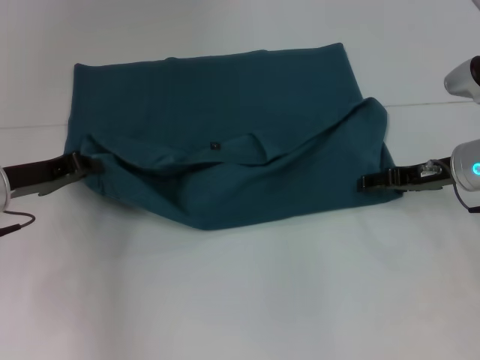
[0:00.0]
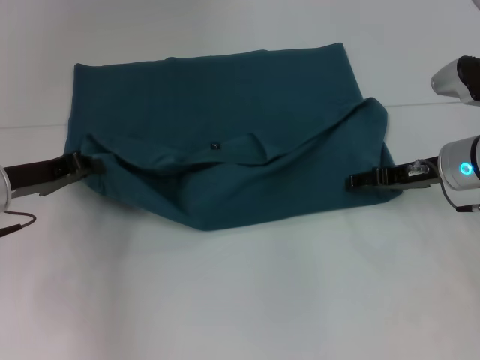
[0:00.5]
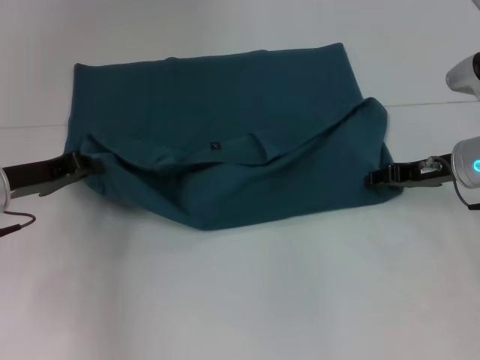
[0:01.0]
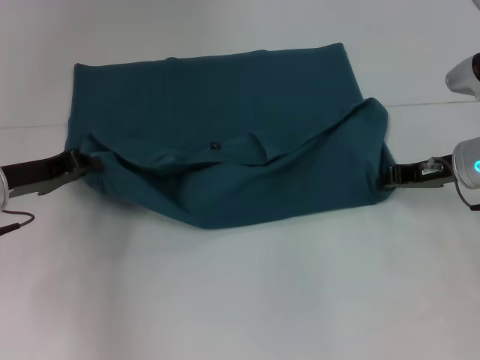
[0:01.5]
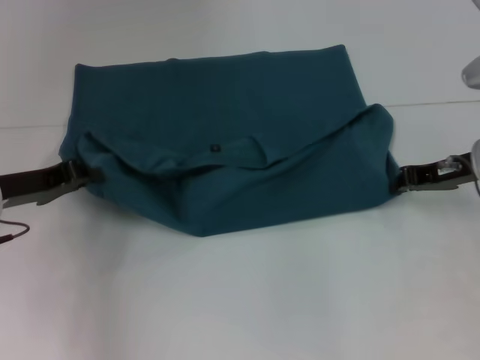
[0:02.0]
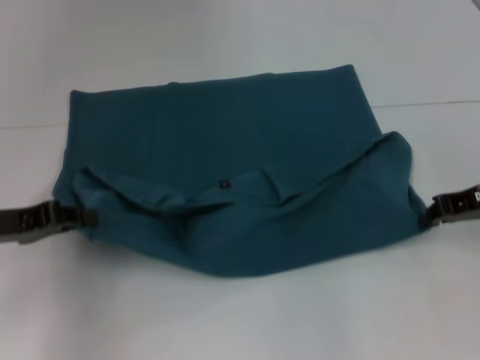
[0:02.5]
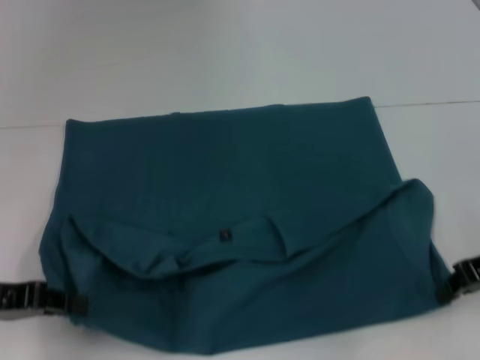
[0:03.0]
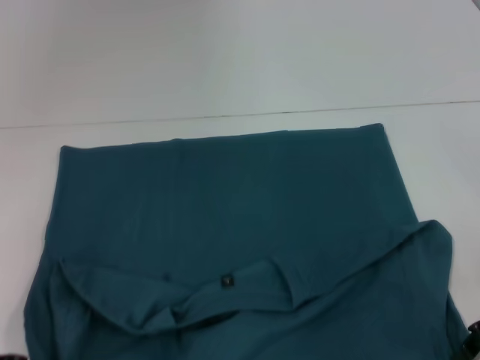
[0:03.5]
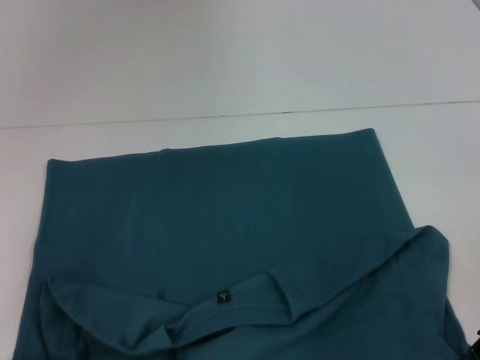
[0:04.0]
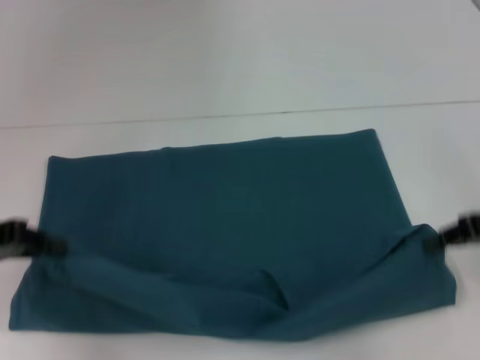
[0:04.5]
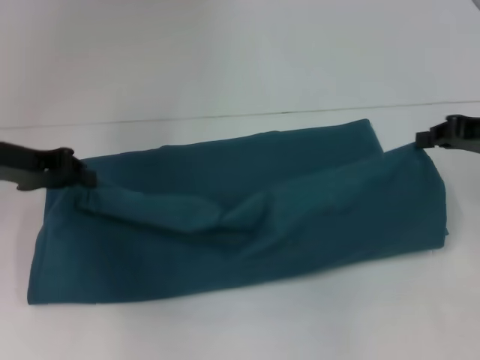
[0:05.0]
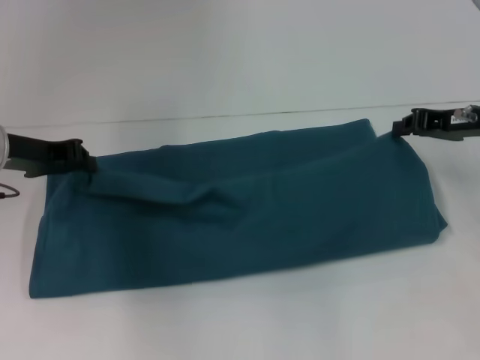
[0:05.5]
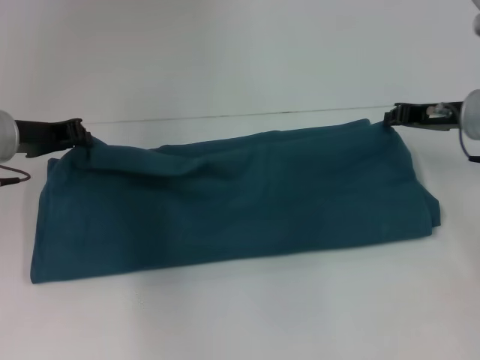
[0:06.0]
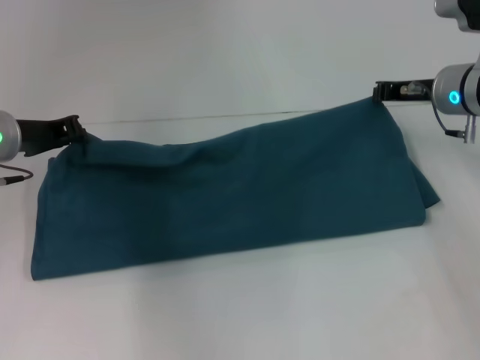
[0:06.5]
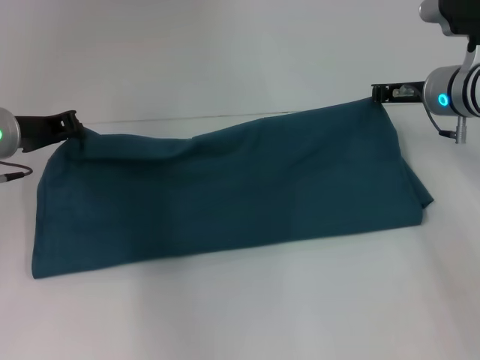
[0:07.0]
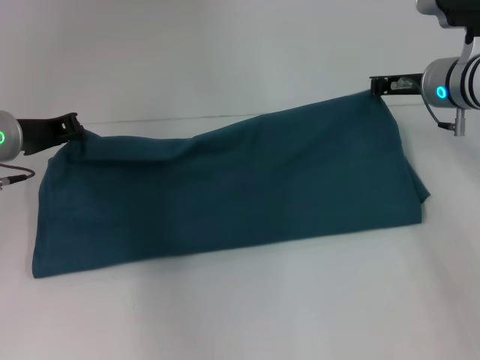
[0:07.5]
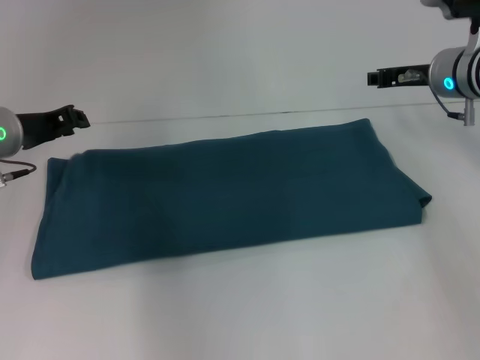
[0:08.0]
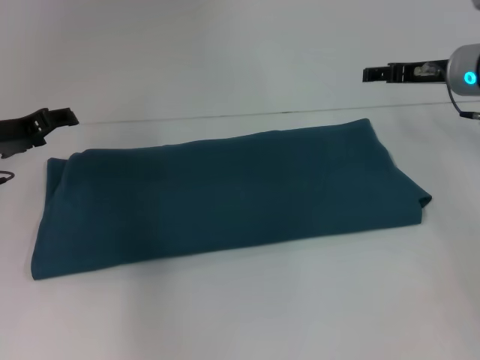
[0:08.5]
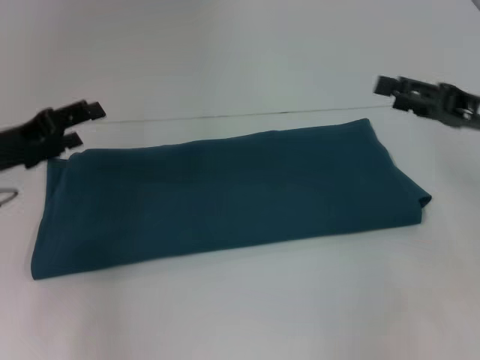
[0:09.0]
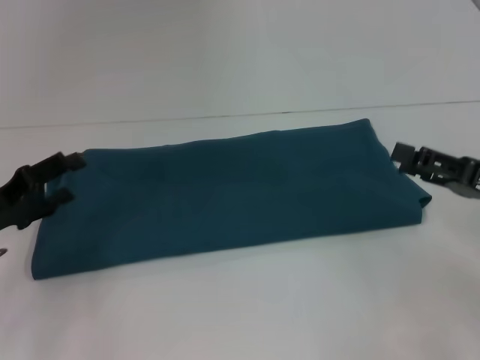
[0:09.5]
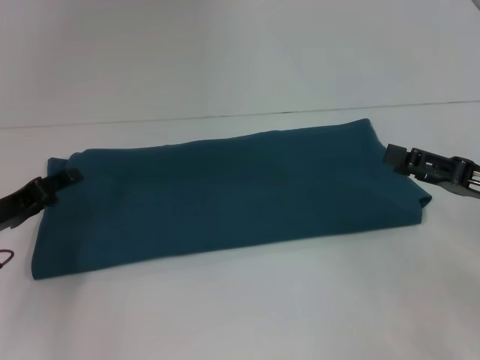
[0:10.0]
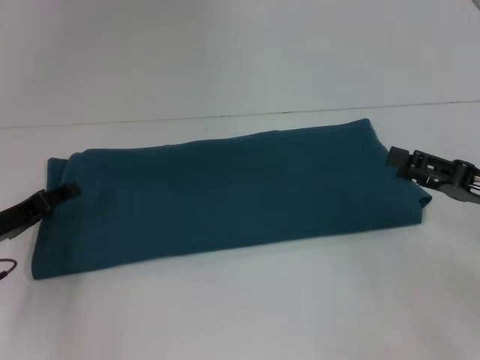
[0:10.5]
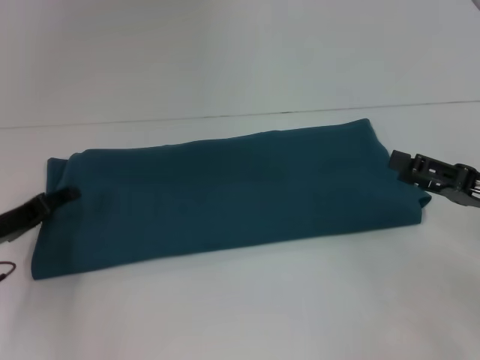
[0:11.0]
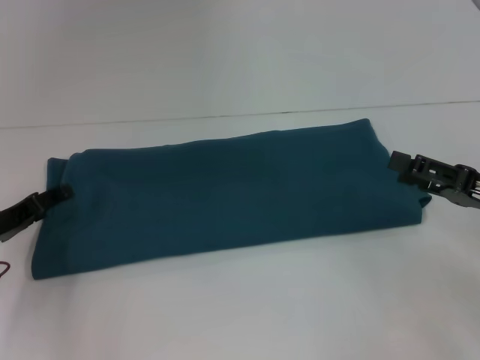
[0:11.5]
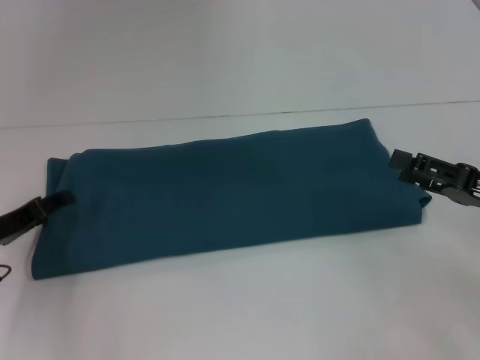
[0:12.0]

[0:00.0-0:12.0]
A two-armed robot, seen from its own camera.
Step, 0:00.0 to 0:04.0: Pull the clothes with your left hand.
Step, 0:00.0 to 0:04.0: Pull the clothes with your right hand.
Step, 0:04.5 to 0:07.5: Fold the clothes to the right.
0:00.0 to 0:02.0: The right gripper closes.
0:02.0 to 0:04.0: The grippers both shift backward by some 15 cm.
0:04.0 to 0:06.0: Both grippers travel together forward, approximately 15 cm.
0:06.0 to 0:08.0: The right gripper changes place by some 5 cm.
0:08.0 to 0:10.0: The left gripper is displaced backward and downward by about 10 cm, and opens its fingers; the right gripper heads backward, covering roughly 20 cm, and opens up.
0:10.0 to 0:12.0: There are only small adjustments of the grippers.

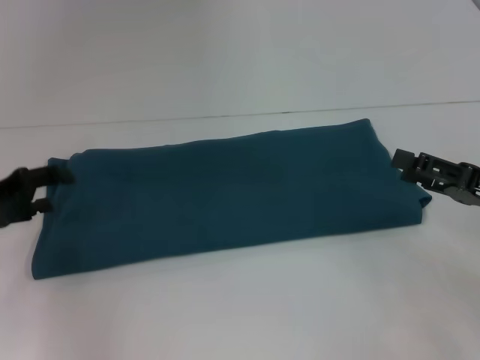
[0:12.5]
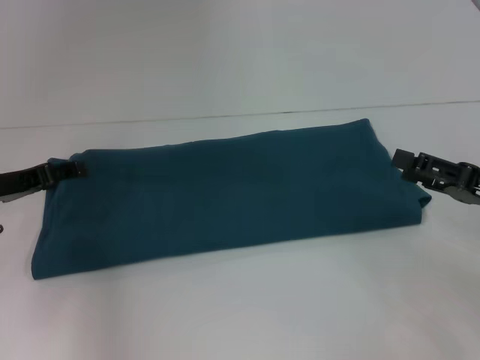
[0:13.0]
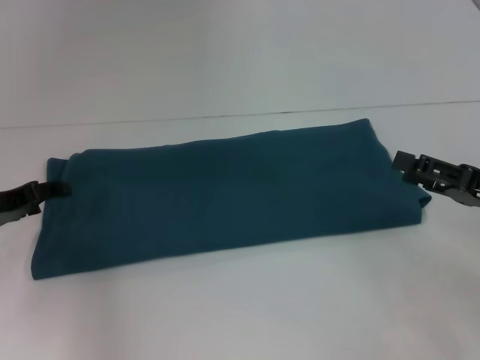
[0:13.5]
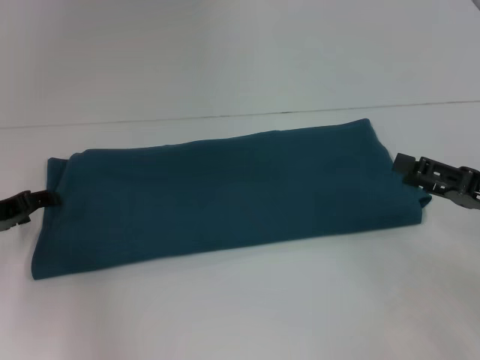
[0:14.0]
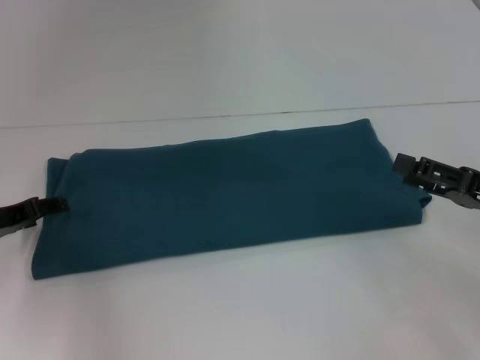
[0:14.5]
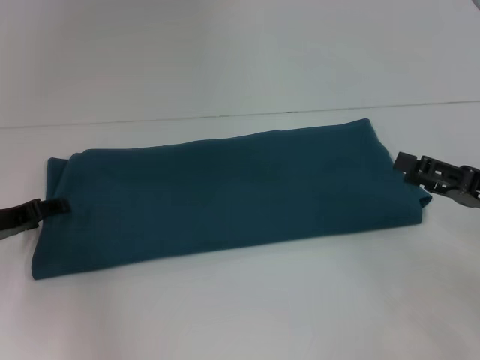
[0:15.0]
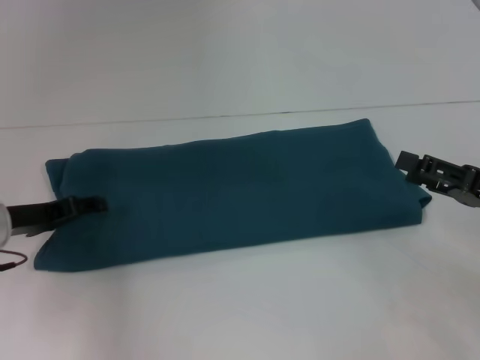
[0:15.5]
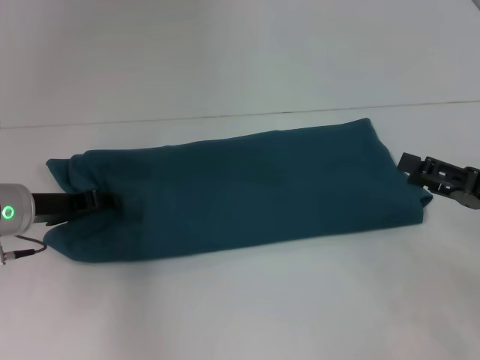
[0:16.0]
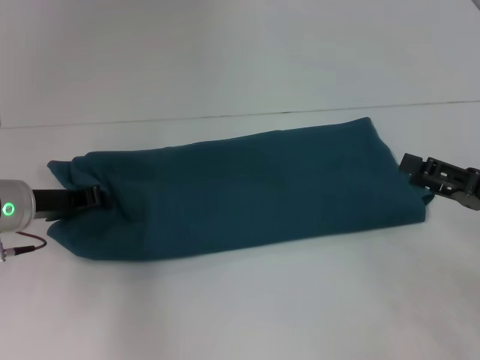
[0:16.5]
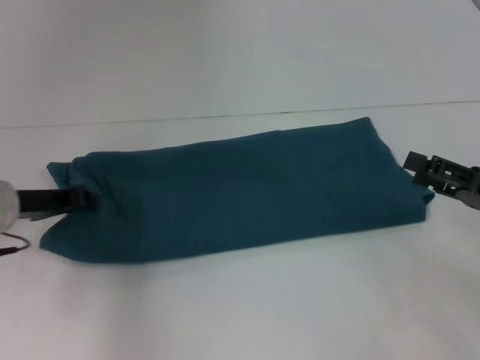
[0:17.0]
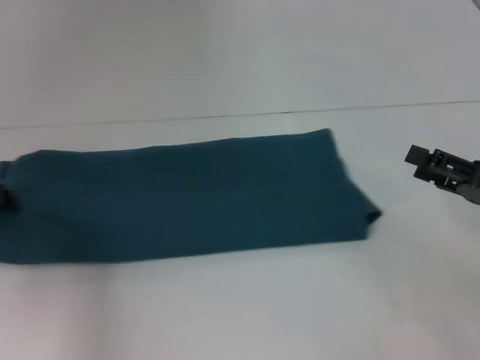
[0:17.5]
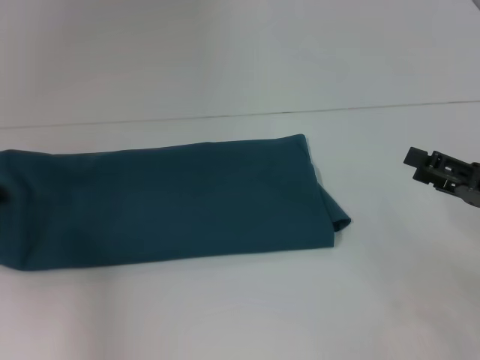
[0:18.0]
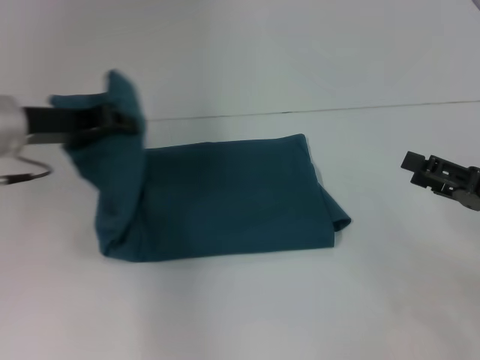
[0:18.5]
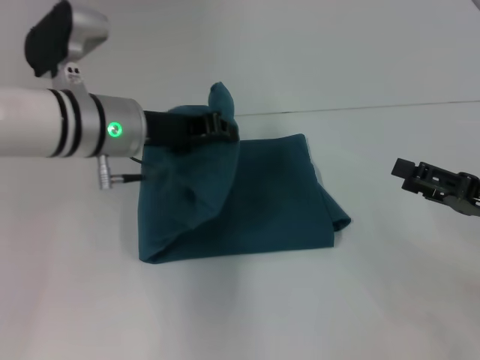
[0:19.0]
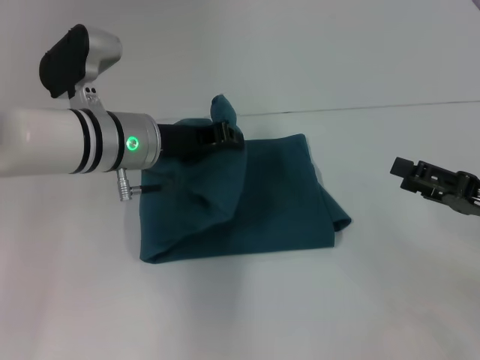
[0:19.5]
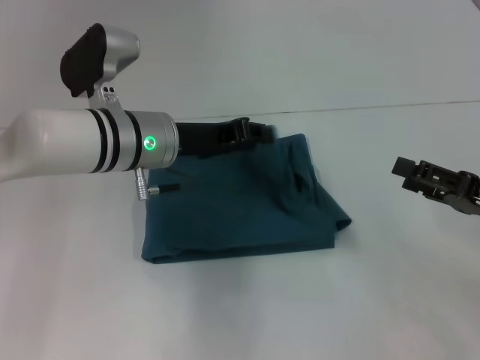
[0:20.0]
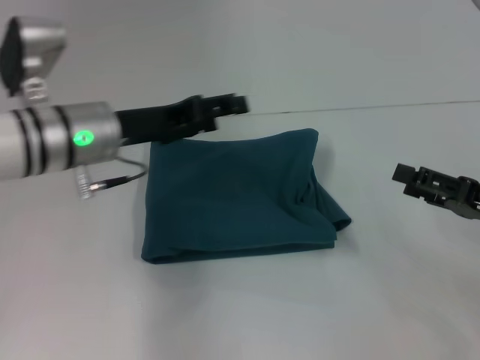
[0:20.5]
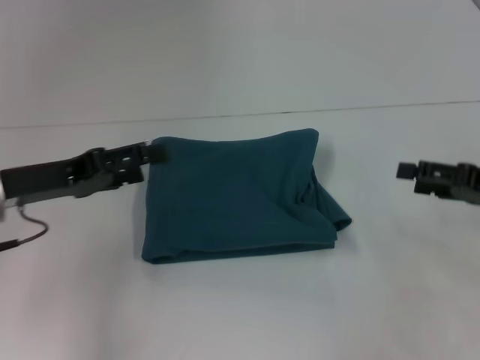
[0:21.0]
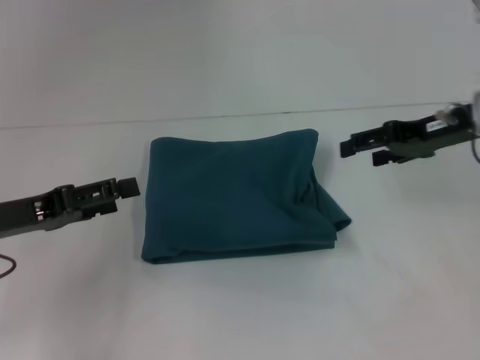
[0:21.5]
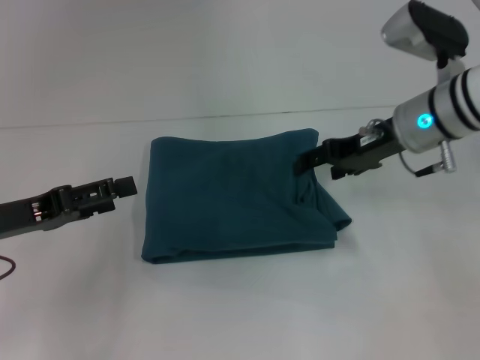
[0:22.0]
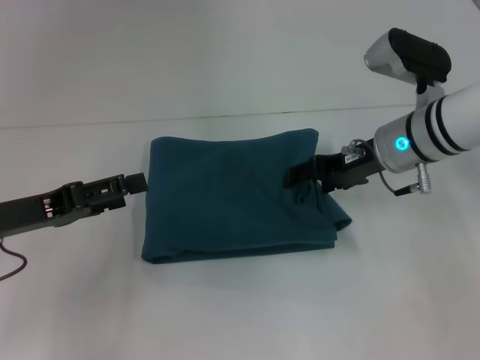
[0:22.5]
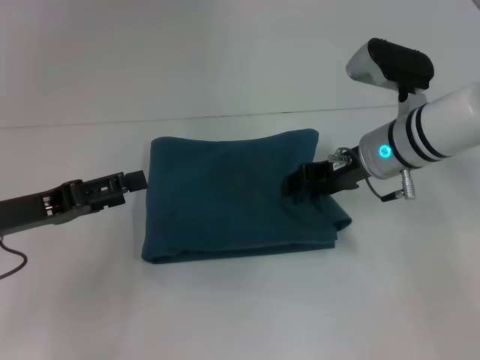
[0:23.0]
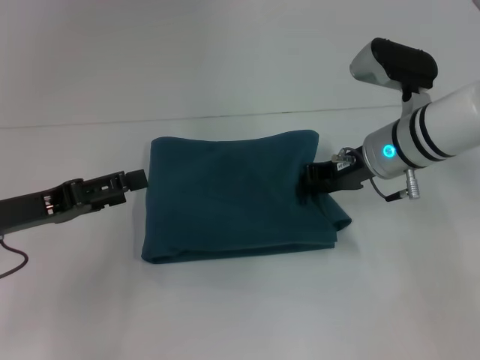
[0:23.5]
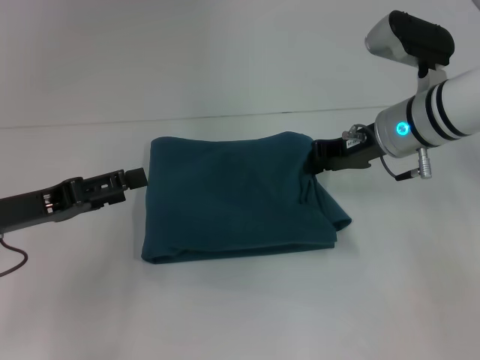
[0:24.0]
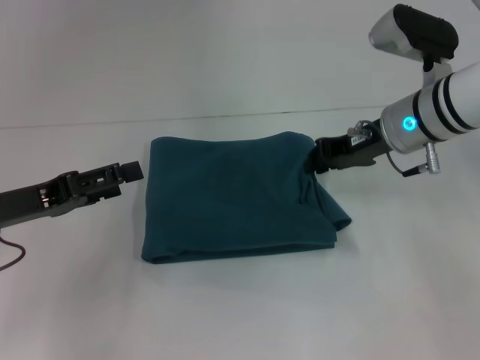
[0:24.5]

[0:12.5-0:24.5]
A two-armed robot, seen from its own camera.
Step, 0:12.5 to 0:20.5: Fold the clothes to the left.
0:14.5 to 0:16.5: The left gripper heads to the right, covering approximately 5 cm, and closes its fingers.
0:16.5 to 0:18.5: The left gripper moves upward, some 10 cm, and goes to the left and returns, approximately 10 cm each way.
0:18.5 to 0:20.5: The left gripper heads to the right, covering about 10 cm, and opens up.
0:20.5 to 0:22.5: The left gripper heads to the left and backward, covering approximately 15 cm, and opens. Meanwhile the right gripper is displaced to the left and forward by roughly 20 cm.
0:22.5 to 0:24.5: The right gripper closes.

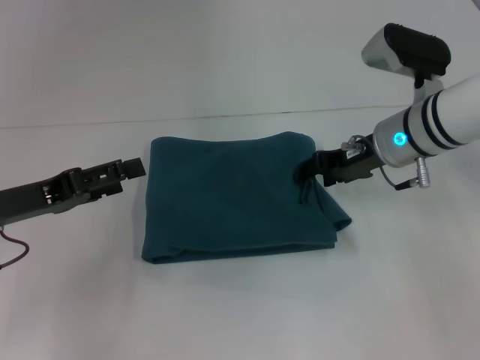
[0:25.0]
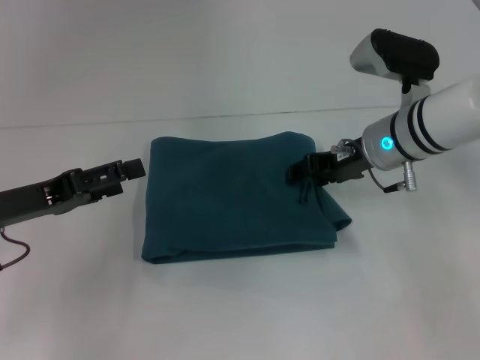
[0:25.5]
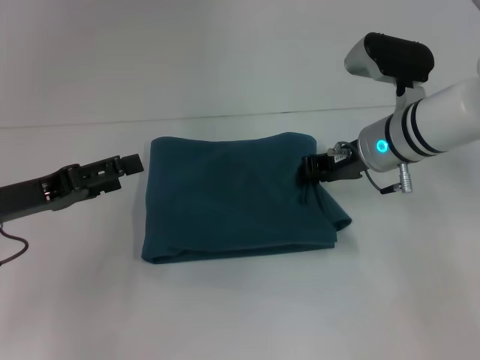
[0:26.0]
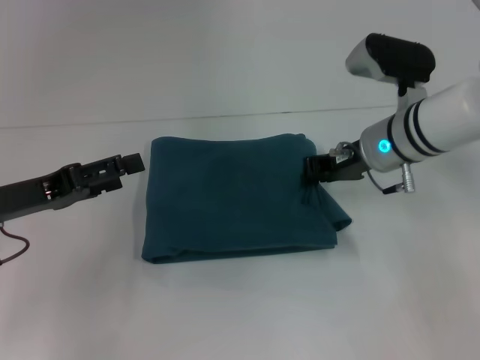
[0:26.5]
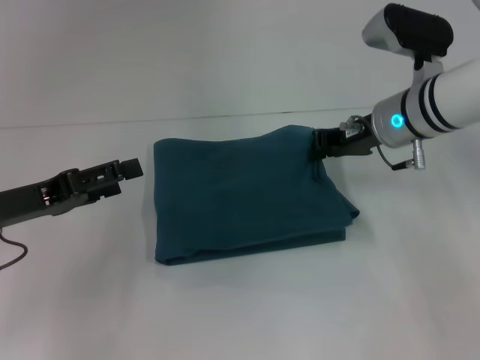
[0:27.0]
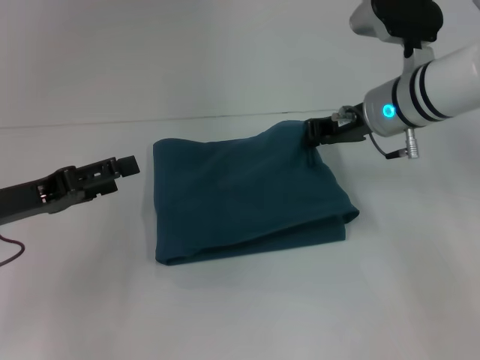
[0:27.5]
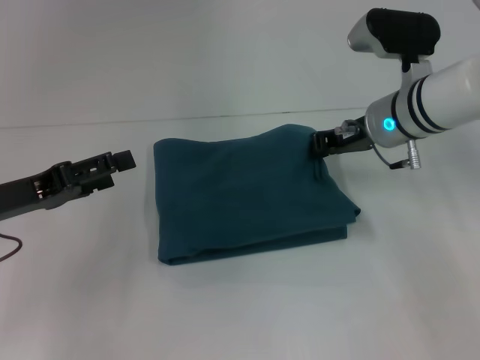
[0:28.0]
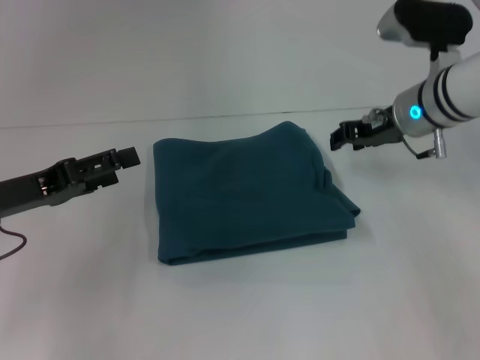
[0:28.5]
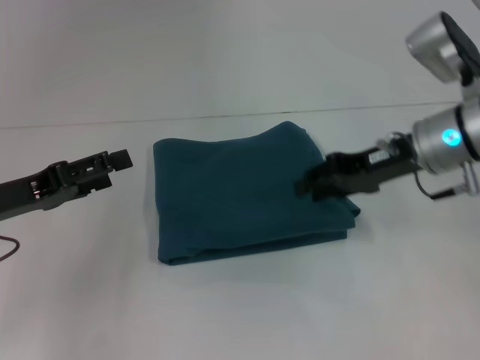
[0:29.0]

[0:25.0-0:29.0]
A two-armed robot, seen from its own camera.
0:25.0 to 0:27.0: The right gripper closes.
0:27.0 to 0:29.0: The right gripper moves some 5 cm, and opens.
